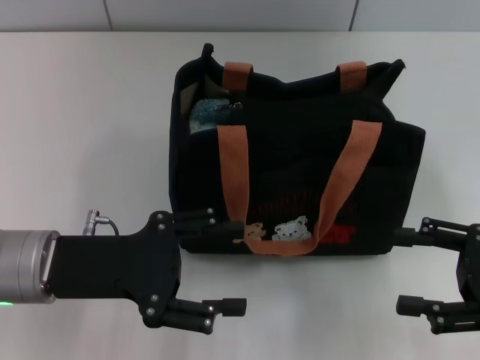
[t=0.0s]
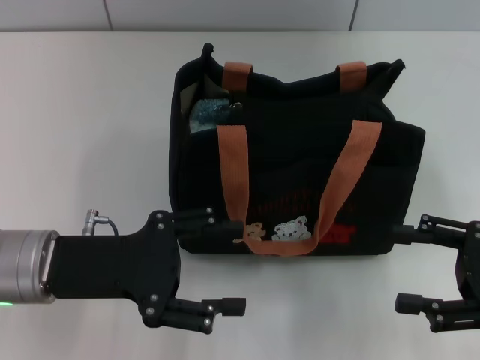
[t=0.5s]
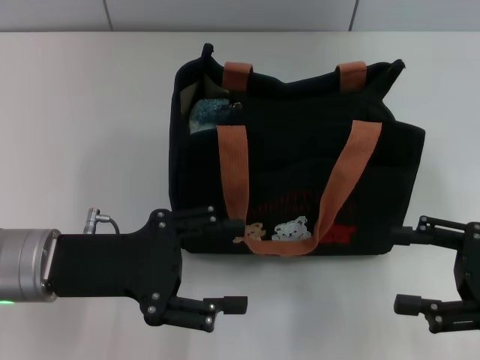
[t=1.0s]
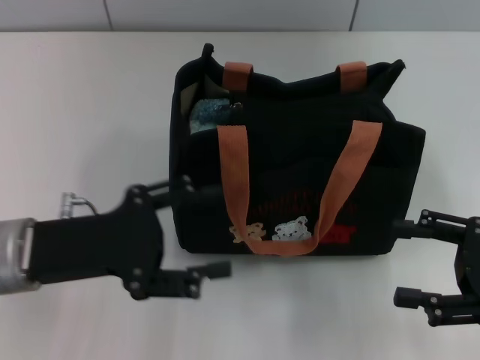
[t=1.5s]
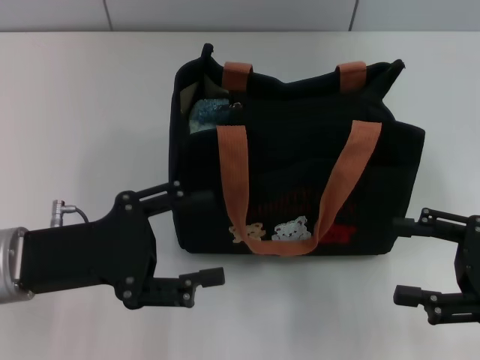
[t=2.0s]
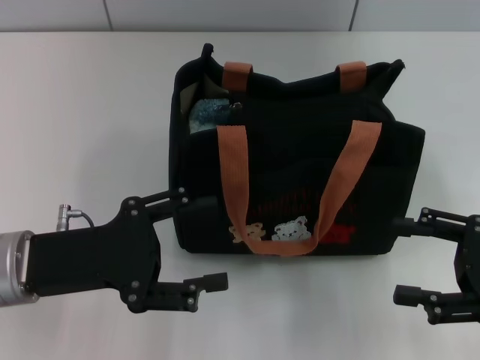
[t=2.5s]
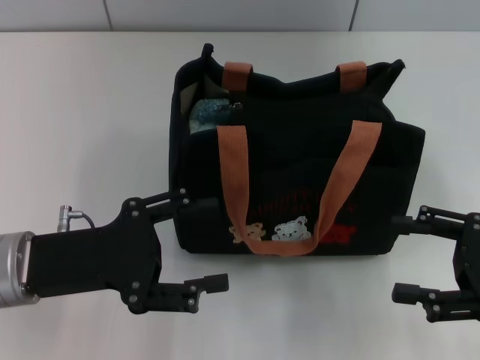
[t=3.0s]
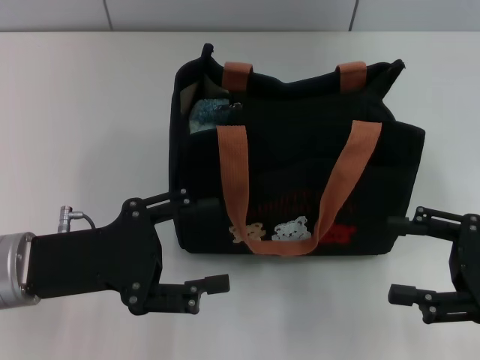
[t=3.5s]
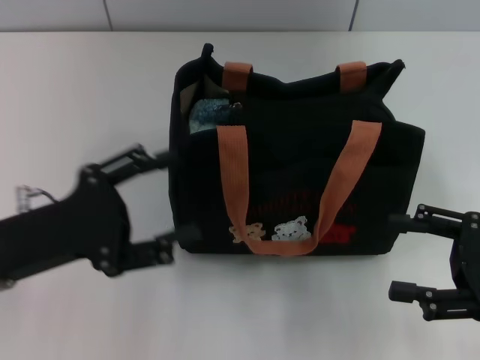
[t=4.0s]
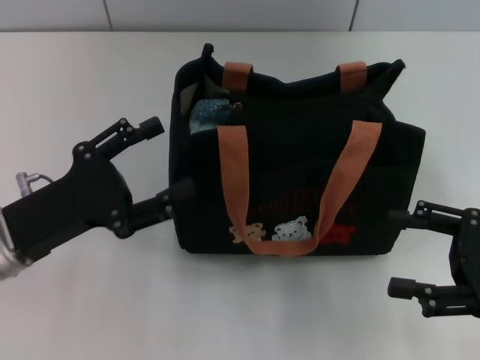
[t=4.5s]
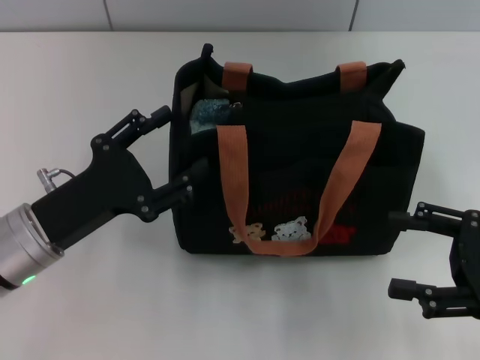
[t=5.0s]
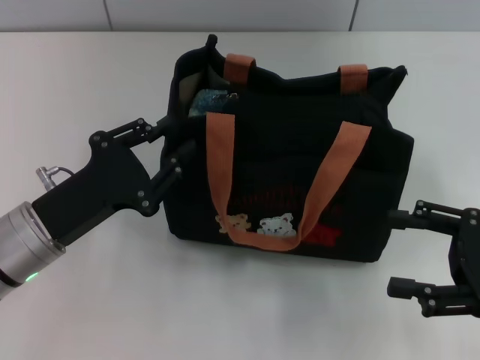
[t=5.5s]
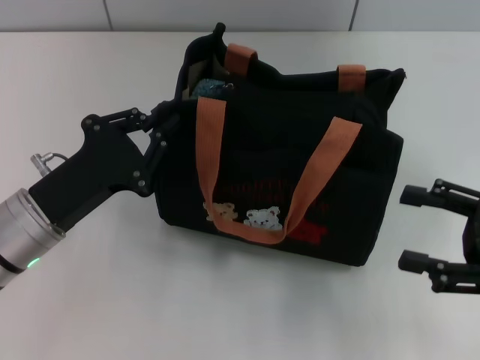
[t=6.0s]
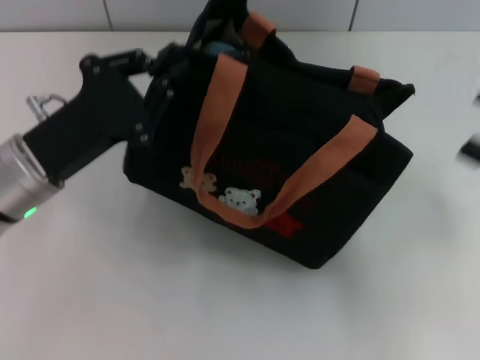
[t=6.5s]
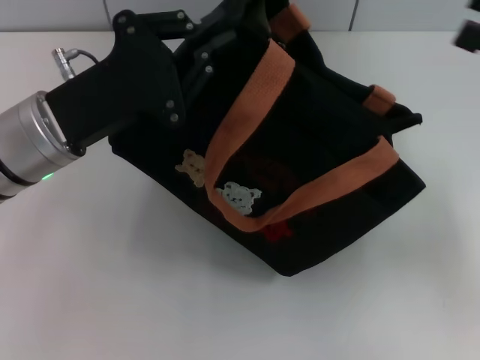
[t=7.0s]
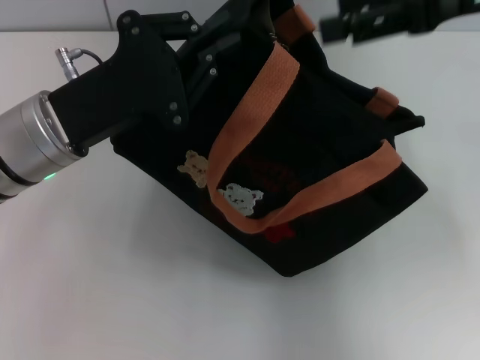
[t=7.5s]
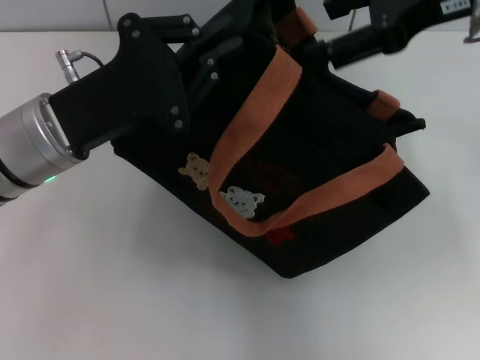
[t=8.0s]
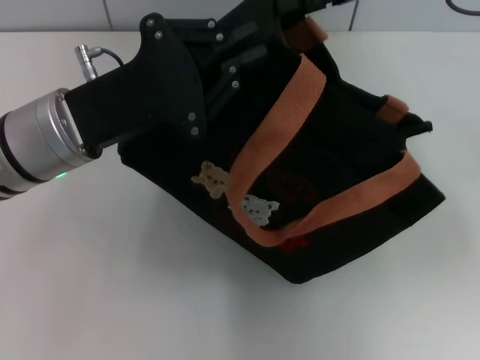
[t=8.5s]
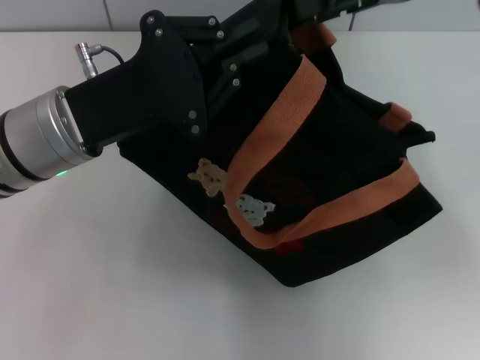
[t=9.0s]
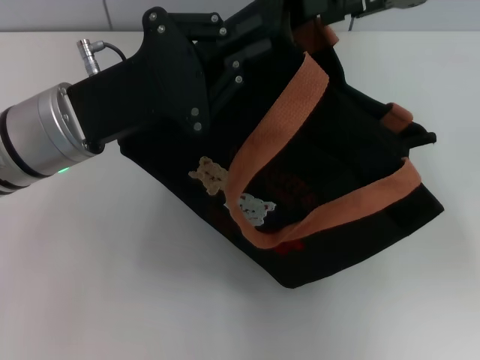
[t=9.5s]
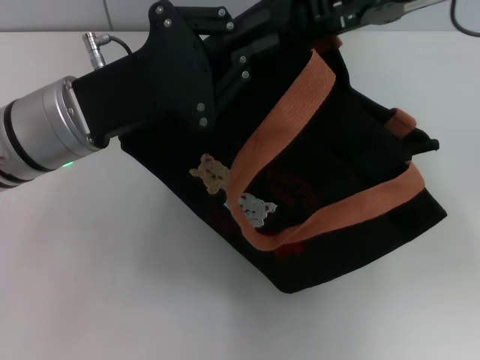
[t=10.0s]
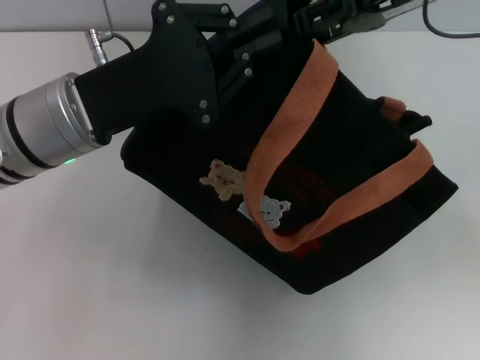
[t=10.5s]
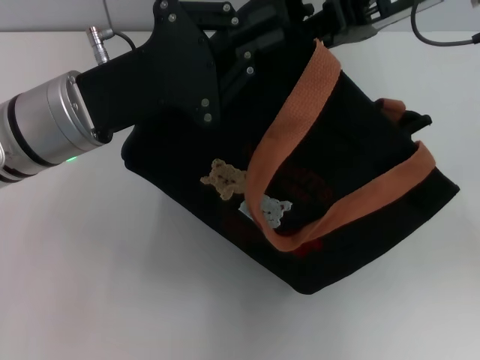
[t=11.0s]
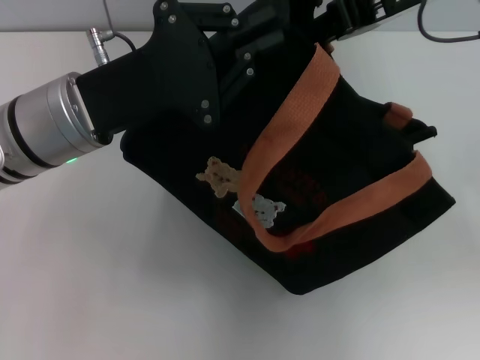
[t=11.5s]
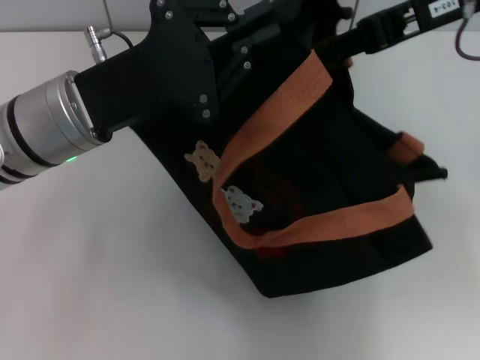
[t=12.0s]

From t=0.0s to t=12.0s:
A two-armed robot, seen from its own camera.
From t=0.0s to t=2.0s: The grippers stay close to where they were, moving slightly.
From t=2.0s to t=4.0s: The grippers stay close to where they were, moving slightly.
From t=4.0s to t=6.0s: The left gripper changes place by approximately 5 cm, and closes.
From t=6.0s to t=8.0s: The right gripper moves upward, forward and to the left, some 25 cm; the left gripper shifts some 10 cm upward and forward.
From t=10.0s to t=12.0s: The right gripper closes up.

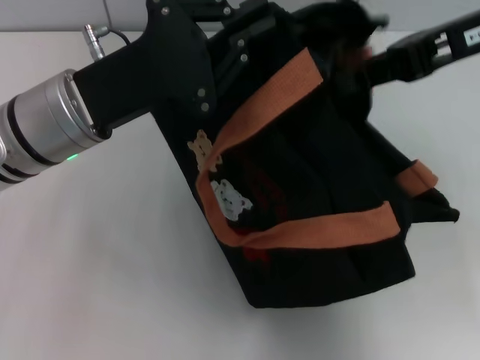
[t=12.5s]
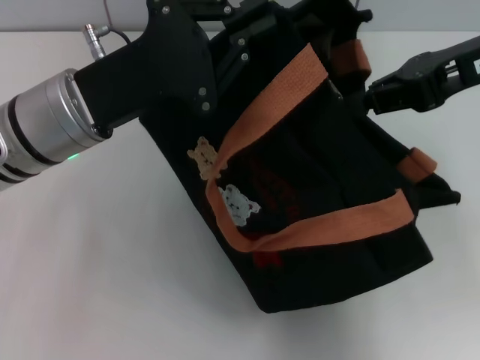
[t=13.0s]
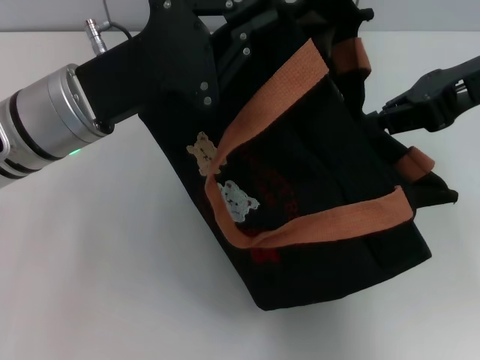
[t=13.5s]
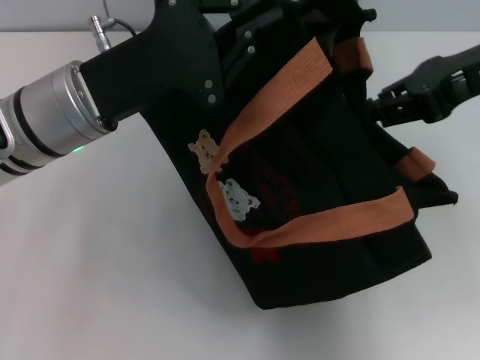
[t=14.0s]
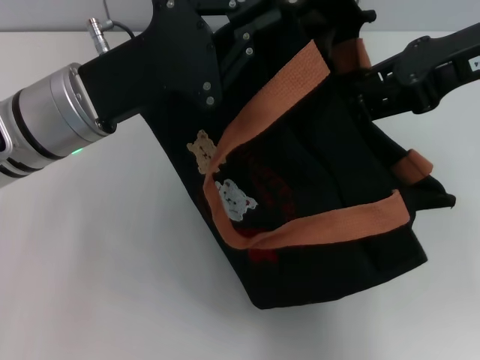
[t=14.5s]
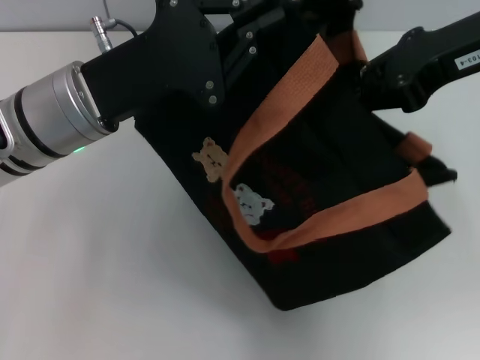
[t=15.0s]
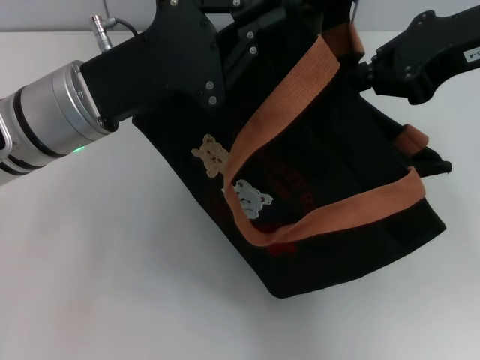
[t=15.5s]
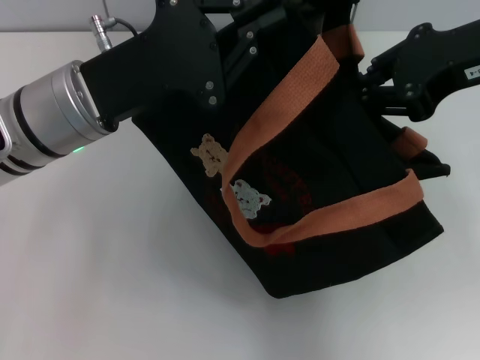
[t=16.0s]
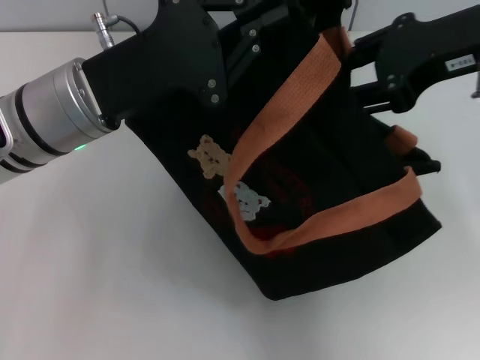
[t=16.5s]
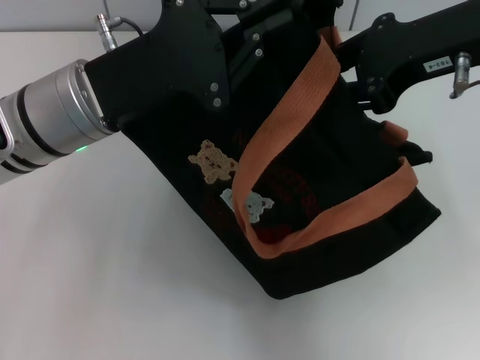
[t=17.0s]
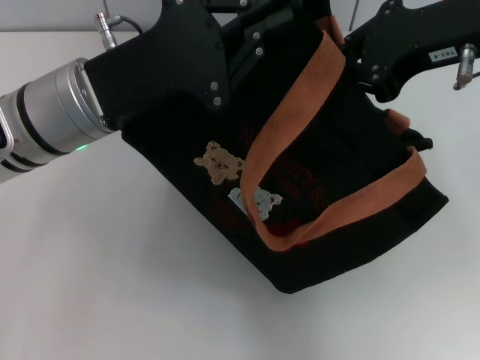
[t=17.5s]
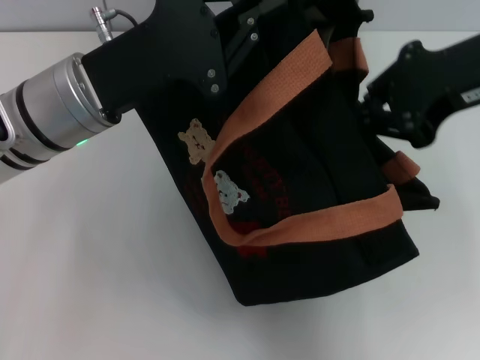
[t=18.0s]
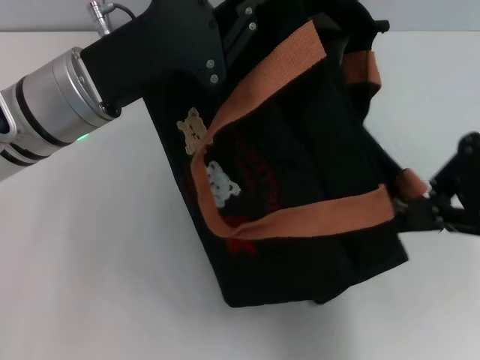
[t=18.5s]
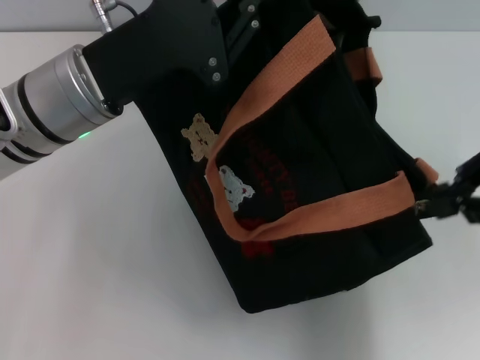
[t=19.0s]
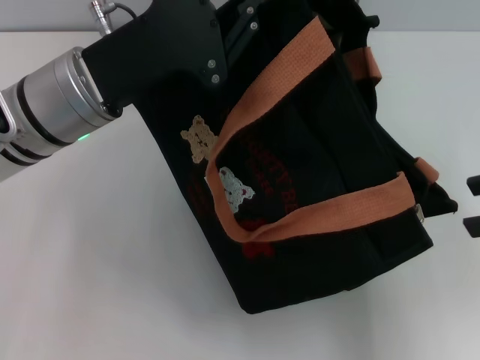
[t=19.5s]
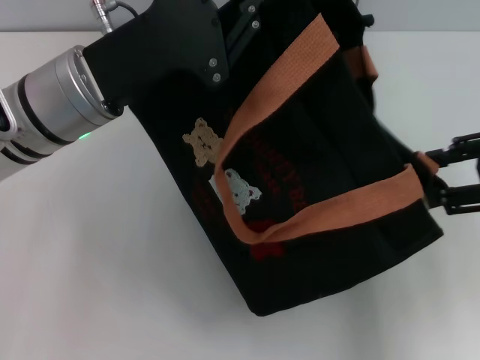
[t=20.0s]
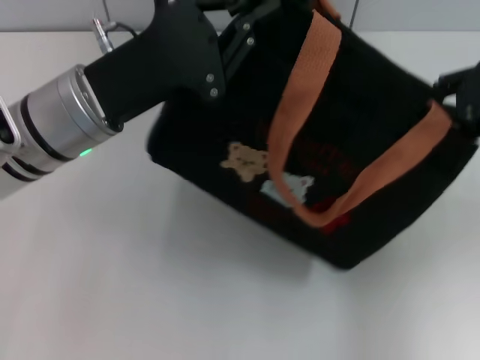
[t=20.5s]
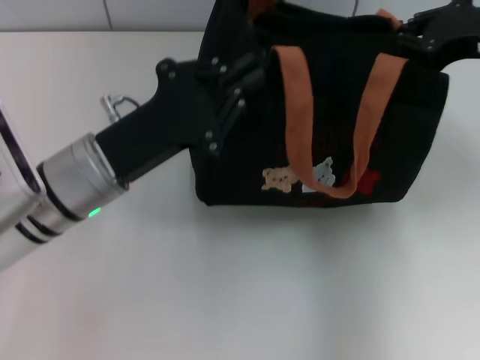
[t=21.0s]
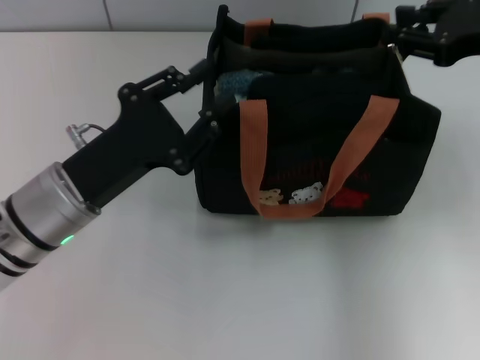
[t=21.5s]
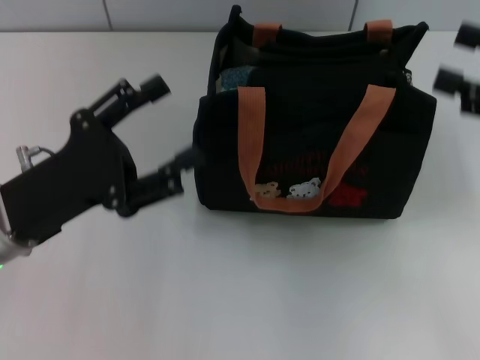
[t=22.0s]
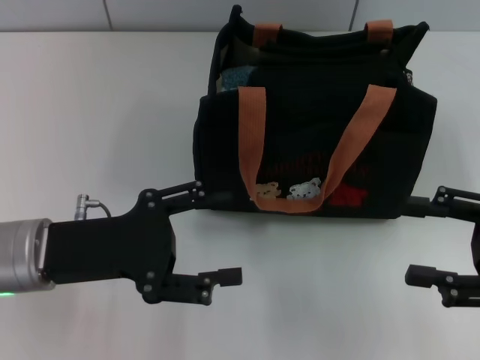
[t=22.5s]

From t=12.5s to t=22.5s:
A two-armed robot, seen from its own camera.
Step, from t=12.5s to t=19.0s: Pull open the zipper with your right hand.
Step, from t=19.5s to t=21.0s: Grab the bag with your left hand.
From t=12.5s to t=14.5s: The right gripper opens up.
From t=14.5s to t=16.5s: There are only small adjustments of the grippers.
From t=16.5s to t=18.5s: The right gripper travels backward by about 5 cm, and closes up.
From t=18.5s to t=20.5s: The right gripper is displaced downward by approximately 5 cm, and opens, then closes again.
From t=20.5s to t=22.5s: The right gripper travels backward and downward by roughly 15 cm, and opens its fingers; the left gripper shifts some 10 cm backward, to the left and downward, and opens up.
